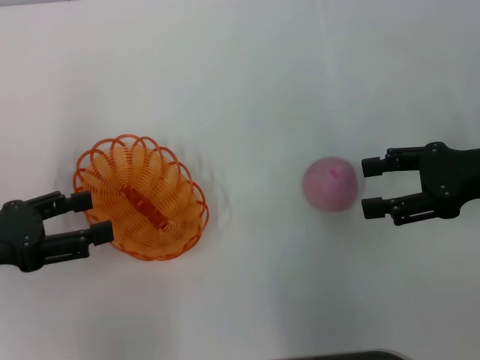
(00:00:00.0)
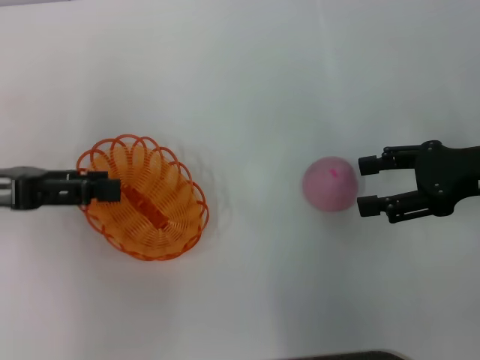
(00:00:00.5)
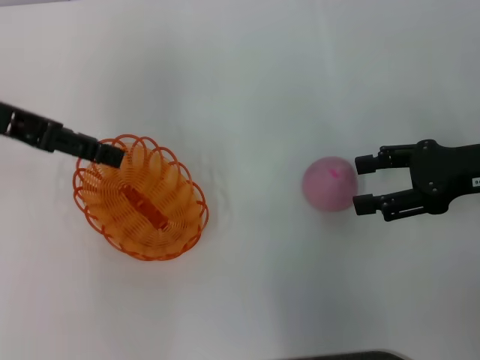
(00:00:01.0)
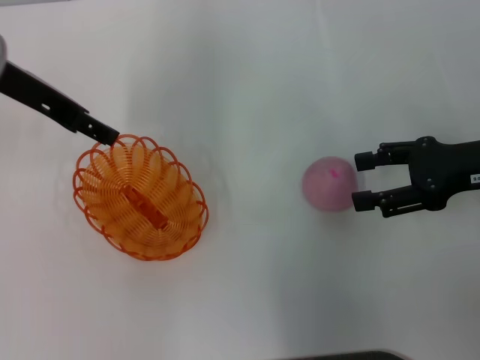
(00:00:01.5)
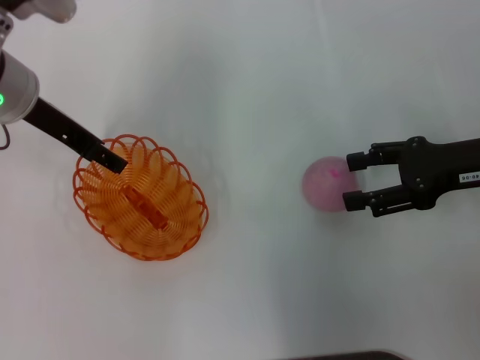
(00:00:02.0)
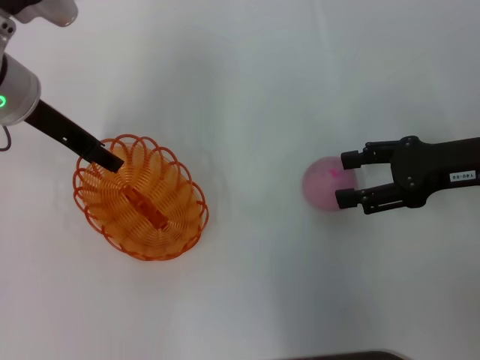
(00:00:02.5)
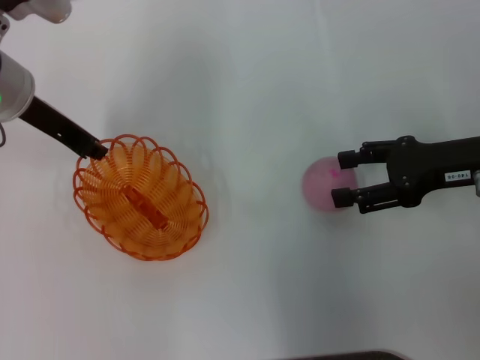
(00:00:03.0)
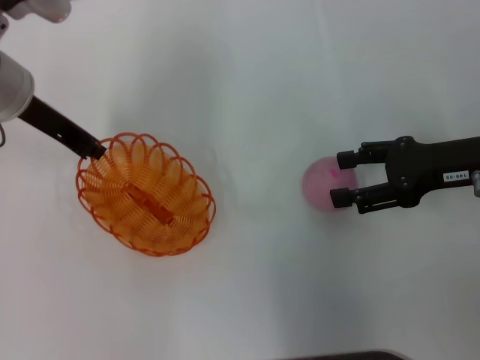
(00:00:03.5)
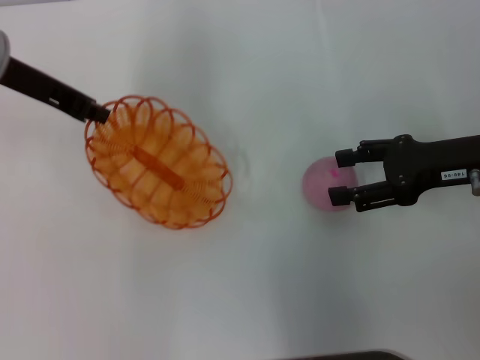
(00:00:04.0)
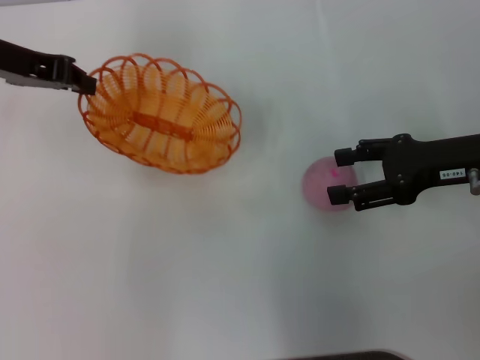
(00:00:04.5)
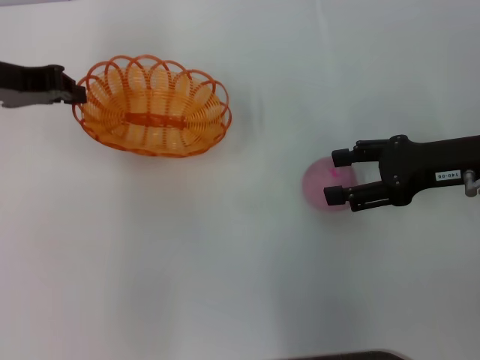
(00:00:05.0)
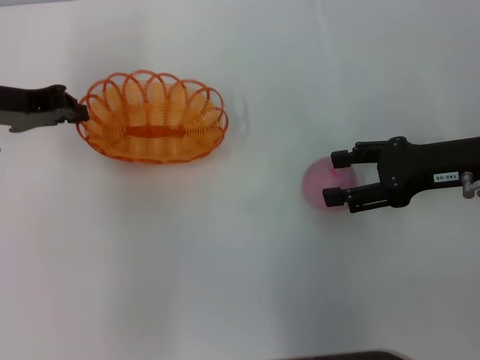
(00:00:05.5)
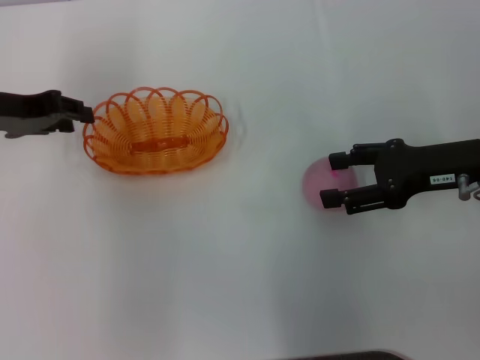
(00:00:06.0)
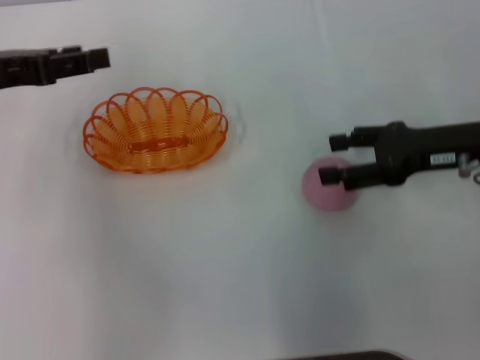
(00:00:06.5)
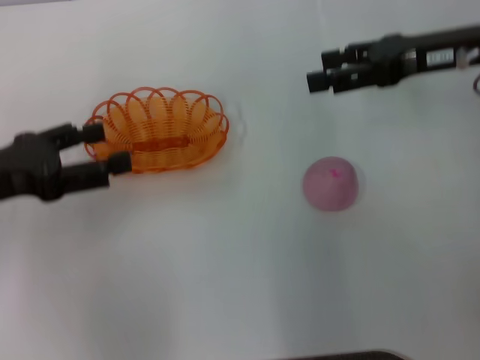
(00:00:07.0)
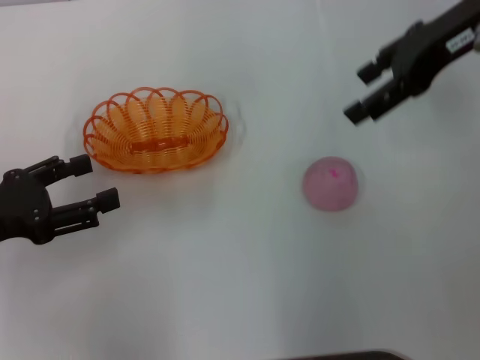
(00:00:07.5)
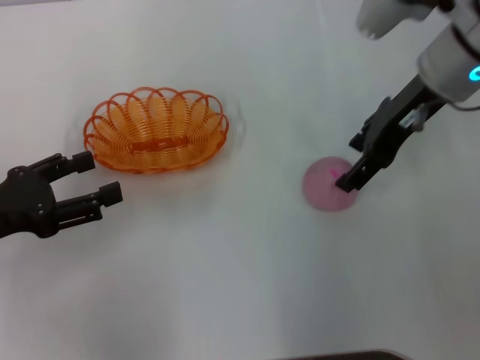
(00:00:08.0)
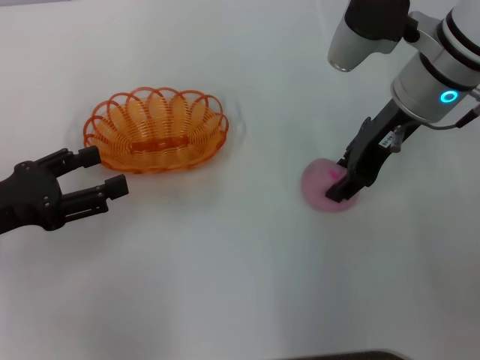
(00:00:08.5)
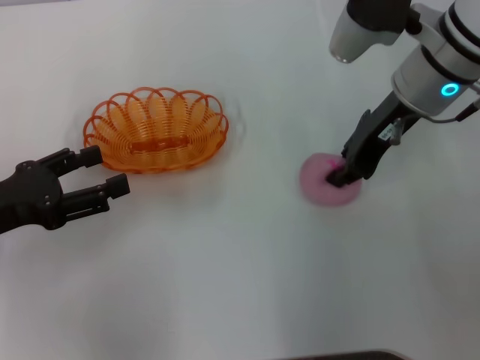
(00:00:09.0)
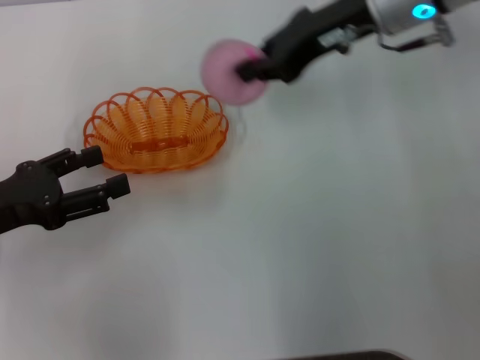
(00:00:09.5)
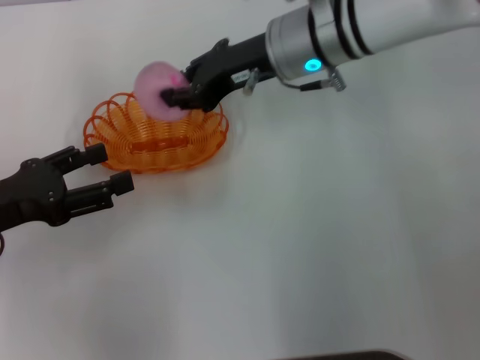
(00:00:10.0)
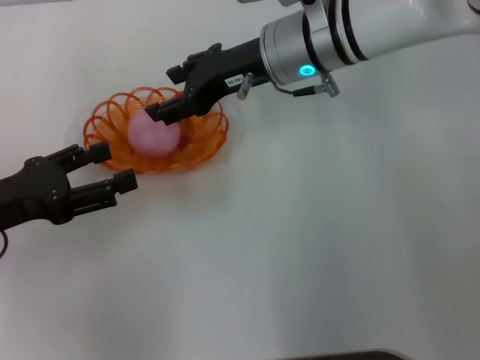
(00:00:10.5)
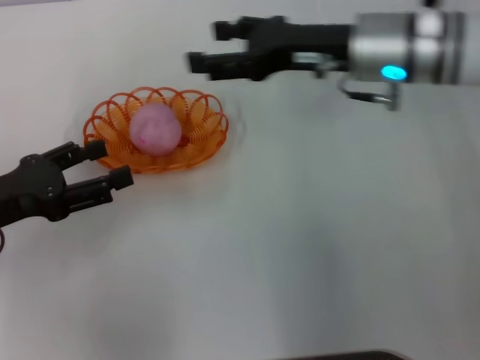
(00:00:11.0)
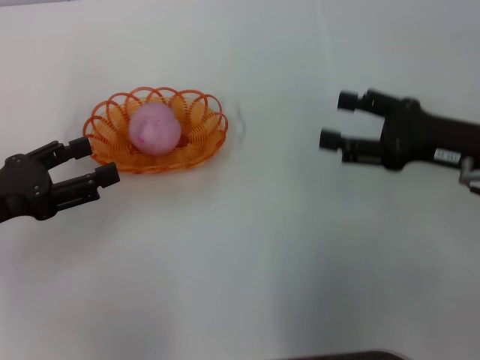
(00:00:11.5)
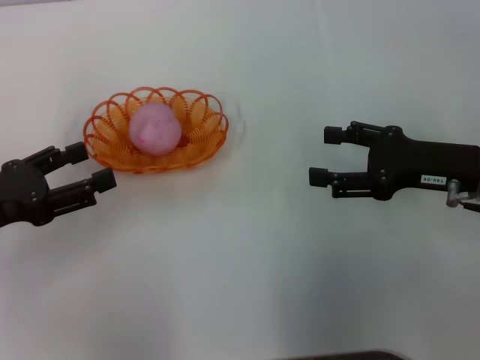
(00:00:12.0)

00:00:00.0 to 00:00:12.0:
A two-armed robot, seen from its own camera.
Step, 00:00:00.0 to 00:00:03.5: Pick up the basket with the left gripper.
Step, 00:00:04.5 to 00:00:06.0: Place the basket in the center of view with the left gripper.
Step, 00:00:07.0 to 00:00:09.0: Pick up the peach with the right gripper.
Step, 00:00:09.5 to 00:00:11.0: Place the peach into the basket with the right gripper.
00:00:00.0 to 00:00:02.0: The left gripper heads forward and to the right, covering approximately 20 cm.
00:00:02.0 to 00:00:04.0: The left gripper closes.
00:00:04.0 to 00:00:06.0: The left gripper travels downward and to the left by about 10 cm.
00:00:06.0 to 00:00:08.0: The right gripper heads upward, to the left and forward, covering roughly 15 cm, while the left gripper shifts approximately 15 cm backward, and opens its fingers.
00:00:08.0 to 00:00:10.0: The right gripper is displaced to the left by about 10 cm, and closes.
00:00:10.0 to 00:00:12.0: The right gripper travels to the right and backward by about 20 cm, and opens.

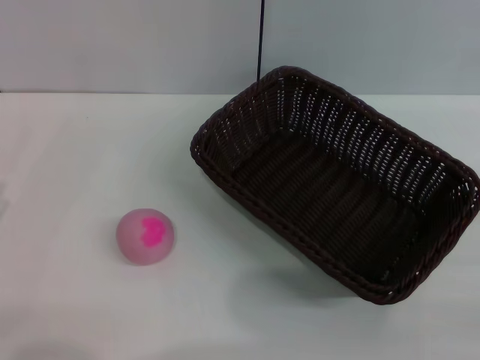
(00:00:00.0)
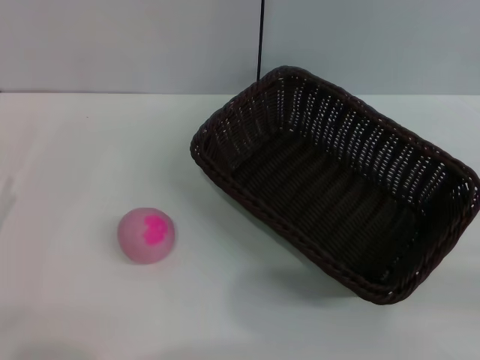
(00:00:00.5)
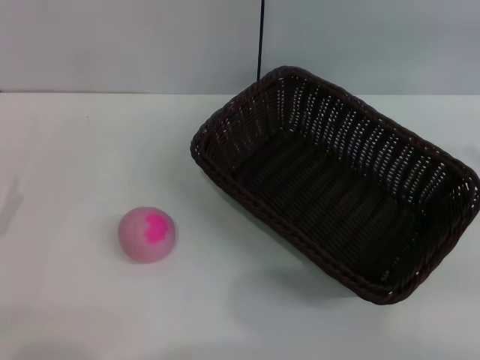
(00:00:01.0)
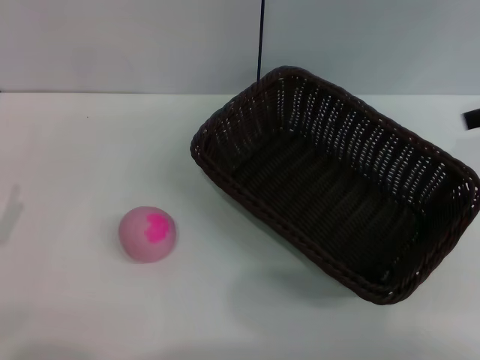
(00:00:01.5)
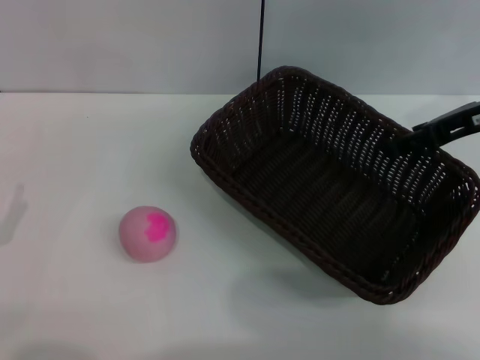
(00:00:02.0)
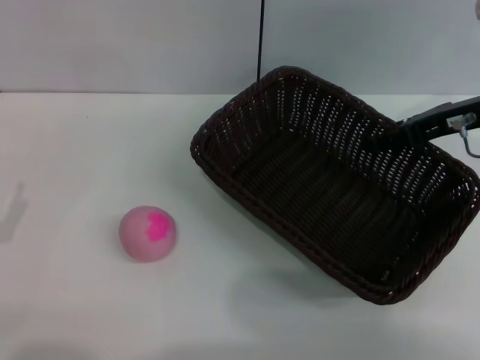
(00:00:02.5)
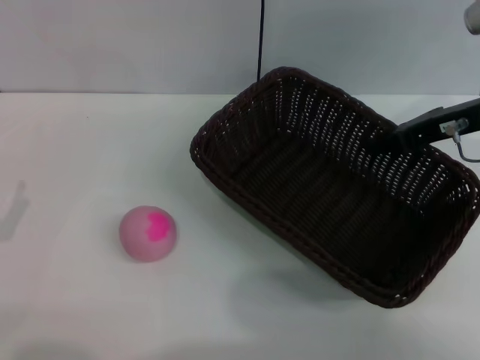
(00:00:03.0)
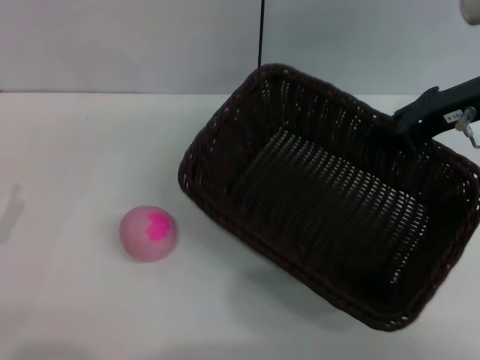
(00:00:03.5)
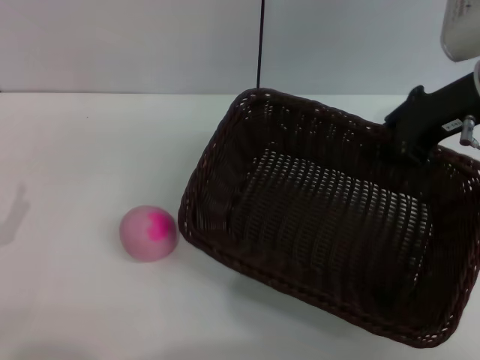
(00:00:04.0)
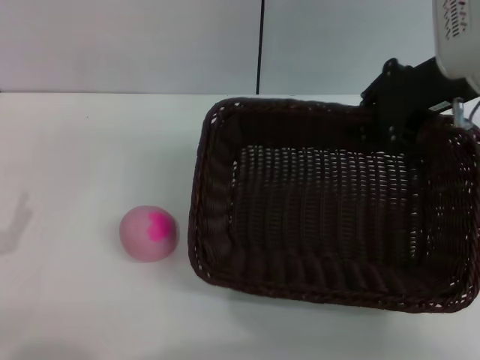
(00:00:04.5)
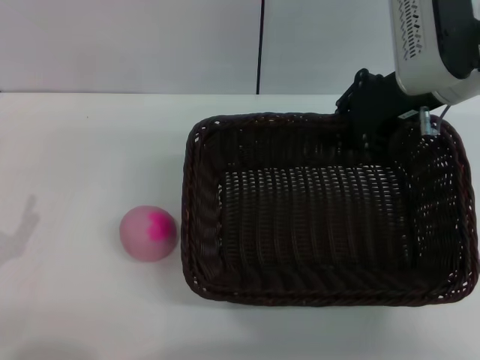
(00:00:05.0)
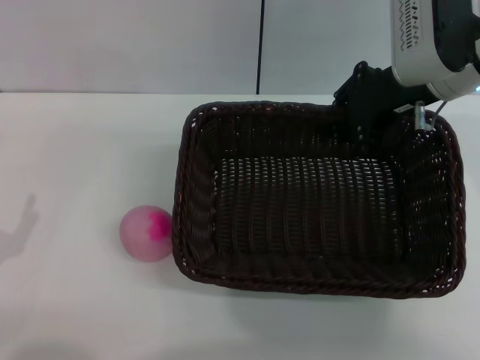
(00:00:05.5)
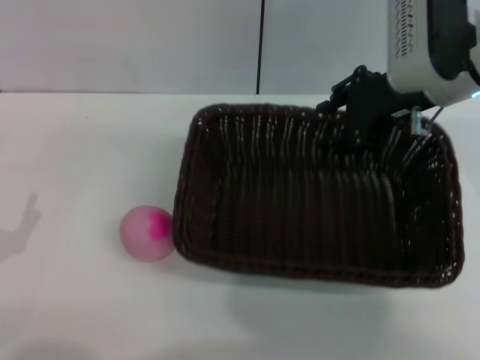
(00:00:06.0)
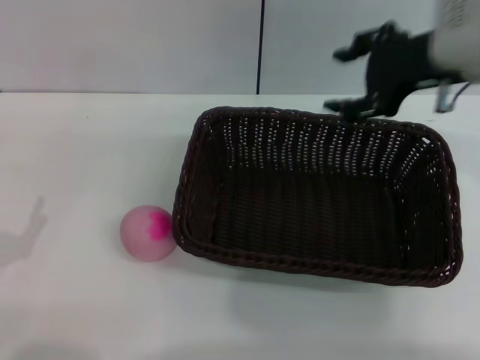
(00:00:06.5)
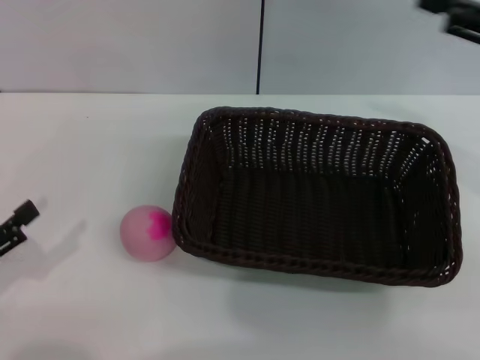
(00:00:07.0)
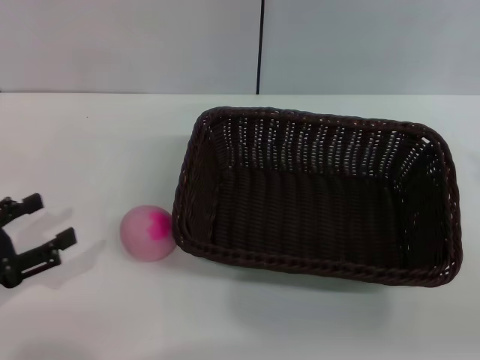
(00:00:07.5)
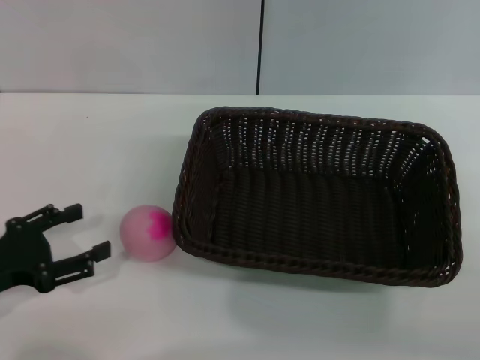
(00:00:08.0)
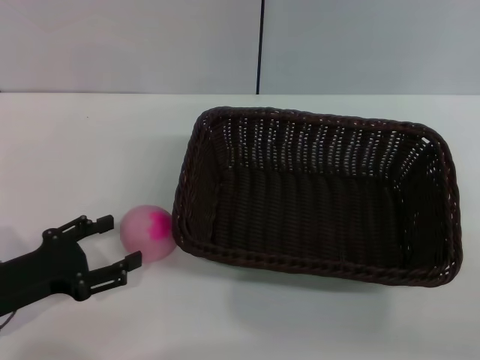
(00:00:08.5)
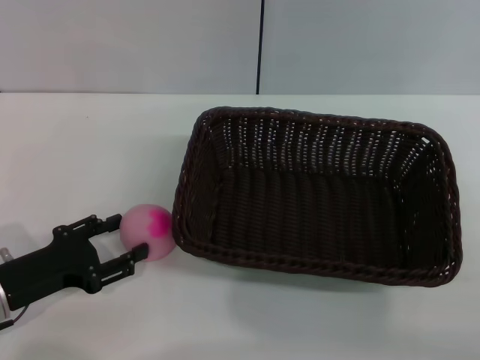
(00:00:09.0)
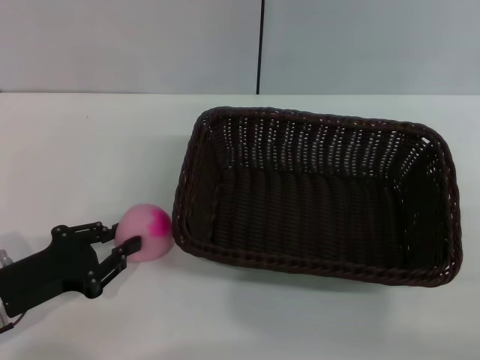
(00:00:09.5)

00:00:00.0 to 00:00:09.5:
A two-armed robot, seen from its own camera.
Step, 00:00:00.0 to 00:00:03.5: Pick up the dark basket with the right gripper.
Step, 00:00:04.0 to 00:00:06.5: Place the dark basket in the center of view with the right gripper.
00:00:00.0 to 00:00:02.0: The right gripper moves forward, to the left and upward, roughly 25 cm.
00:00:02.0 to 00:00:04.0: The right gripper ends up some 5 cm from where it was, and closes its fingers.
00:00:05.5 to 00:00:07.5: The right gripper moves backward, to the right and downward, roughly 25 cm, and opens; the left gripper ends up roughly 5 cm from where it was.
00:00:07.5 to 00:00:09.5: The left gripper travels to the right by approximately 5 cm, and closes its fingers.

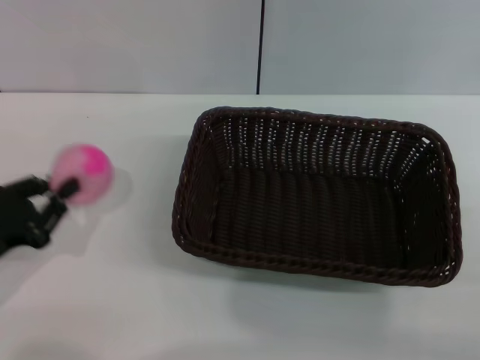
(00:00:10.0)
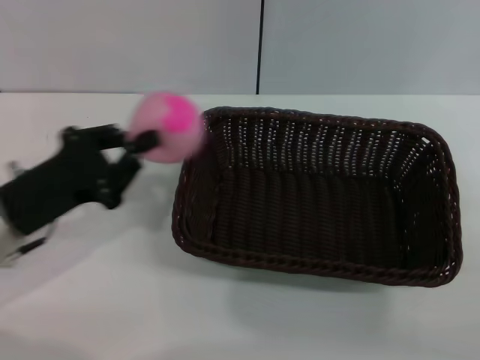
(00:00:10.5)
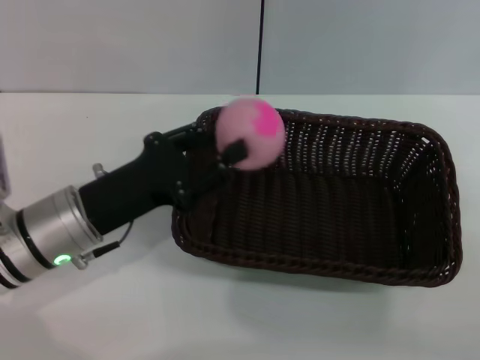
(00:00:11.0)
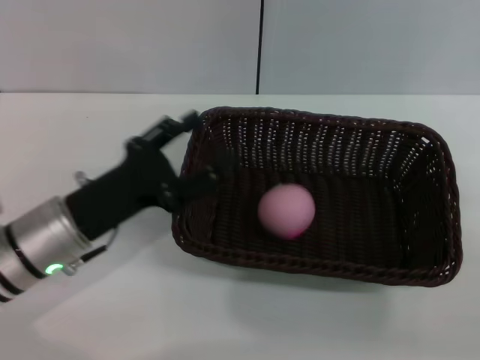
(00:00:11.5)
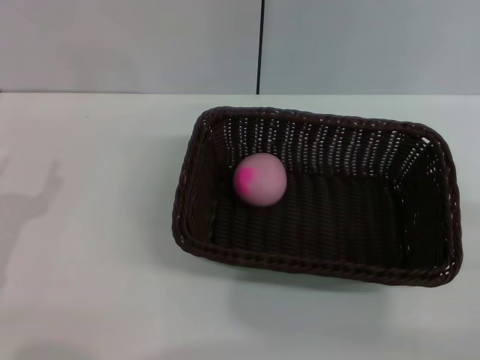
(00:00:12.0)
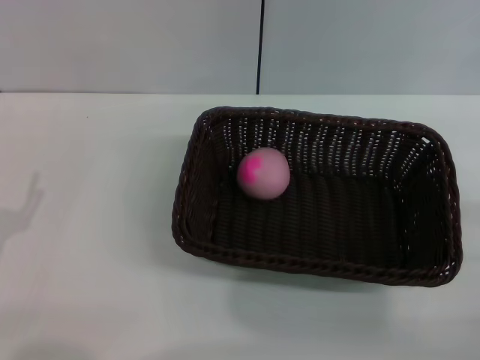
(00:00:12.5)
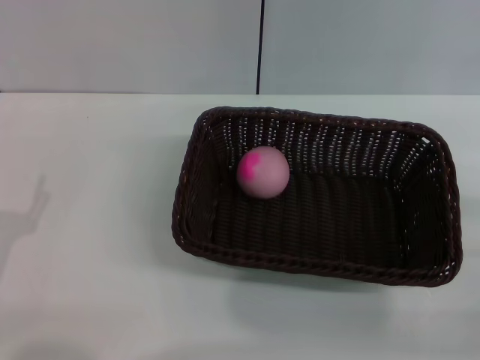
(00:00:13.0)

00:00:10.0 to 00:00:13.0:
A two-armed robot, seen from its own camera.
Step, 00:00:10.5 to 00:00:11.5: Place the peach into the basket with the left gripper.
00:00:10.0 to 00:00:11.5: The left gripper is displaced to the right by approximately 10 cm, and opens.
00:00:11.5 to 00:00:13.0: The left gripper is displaced to the left and backward by some 15 cm.
